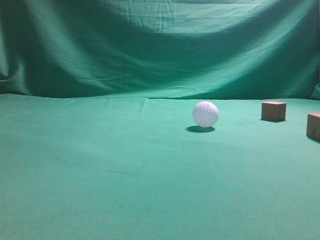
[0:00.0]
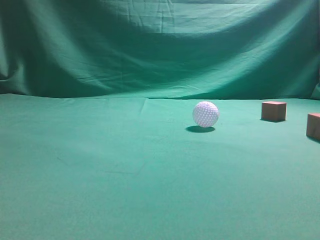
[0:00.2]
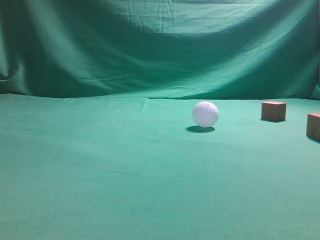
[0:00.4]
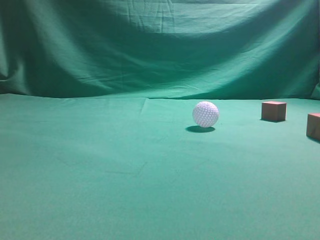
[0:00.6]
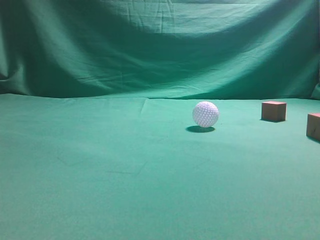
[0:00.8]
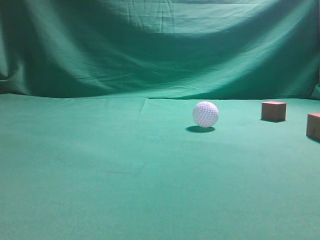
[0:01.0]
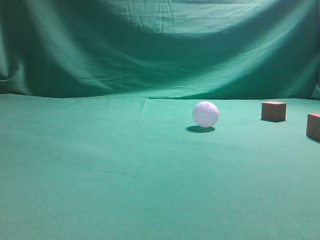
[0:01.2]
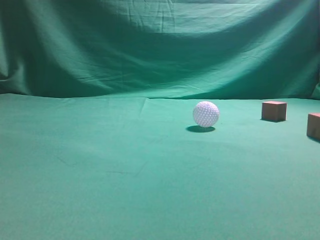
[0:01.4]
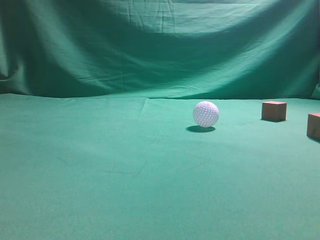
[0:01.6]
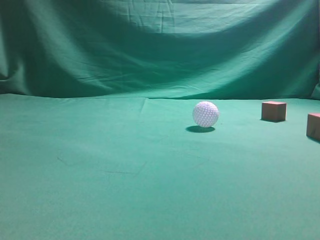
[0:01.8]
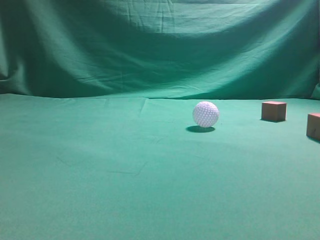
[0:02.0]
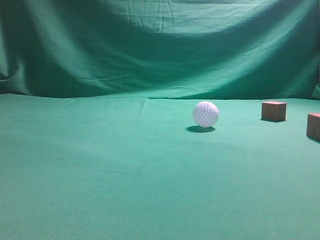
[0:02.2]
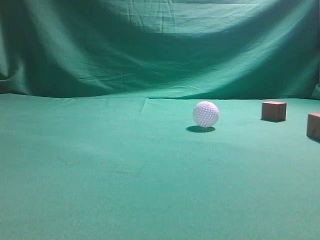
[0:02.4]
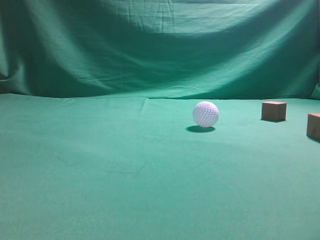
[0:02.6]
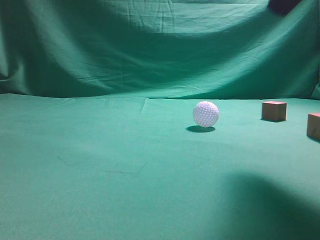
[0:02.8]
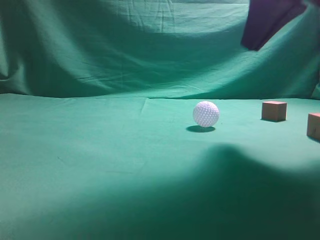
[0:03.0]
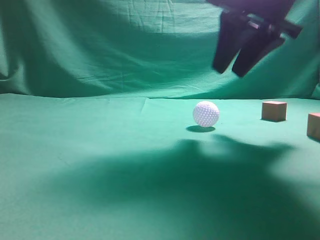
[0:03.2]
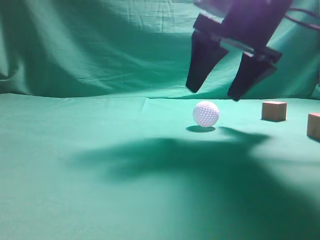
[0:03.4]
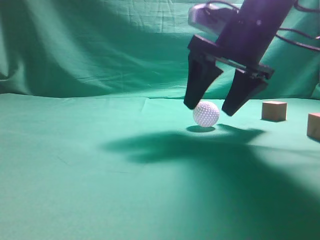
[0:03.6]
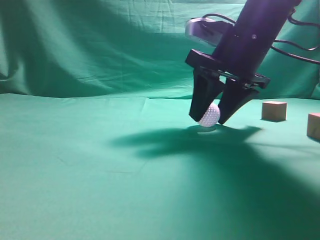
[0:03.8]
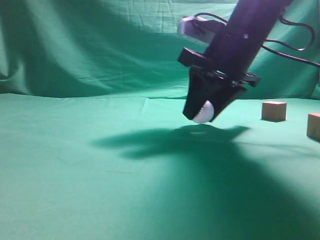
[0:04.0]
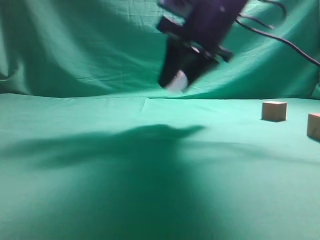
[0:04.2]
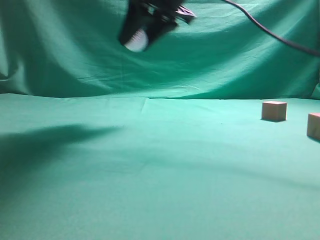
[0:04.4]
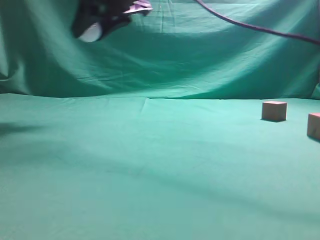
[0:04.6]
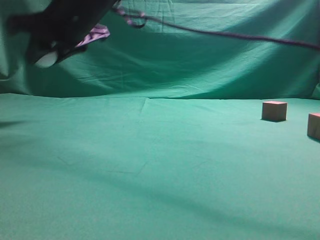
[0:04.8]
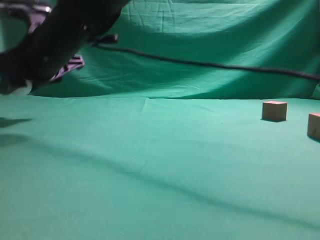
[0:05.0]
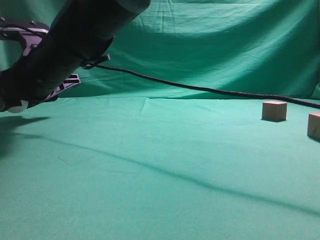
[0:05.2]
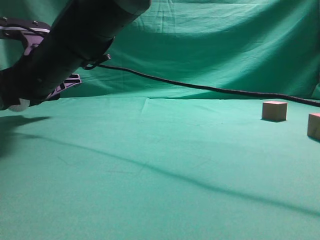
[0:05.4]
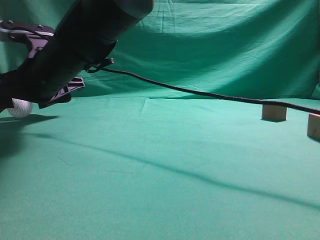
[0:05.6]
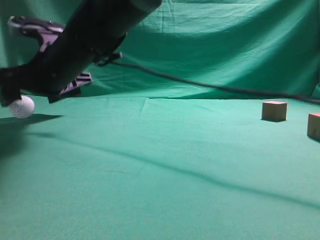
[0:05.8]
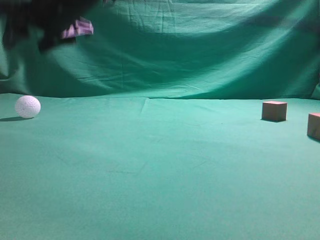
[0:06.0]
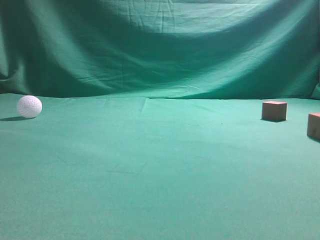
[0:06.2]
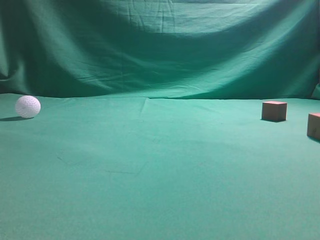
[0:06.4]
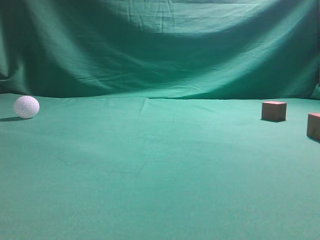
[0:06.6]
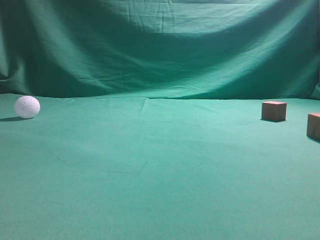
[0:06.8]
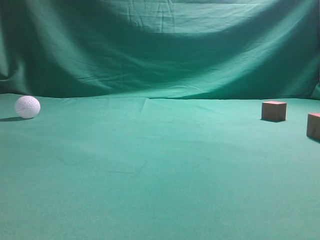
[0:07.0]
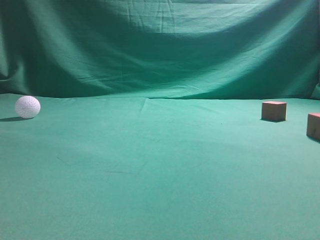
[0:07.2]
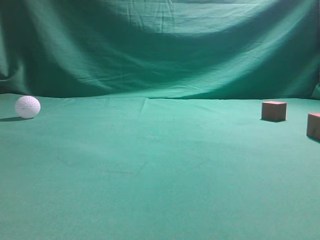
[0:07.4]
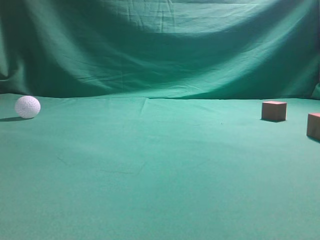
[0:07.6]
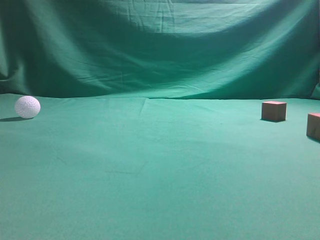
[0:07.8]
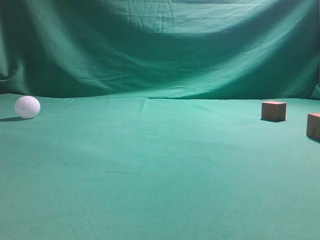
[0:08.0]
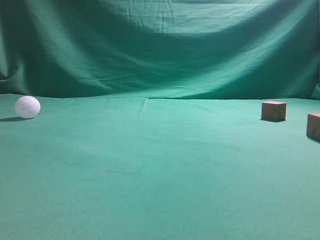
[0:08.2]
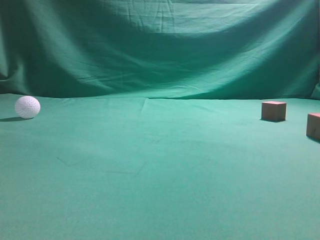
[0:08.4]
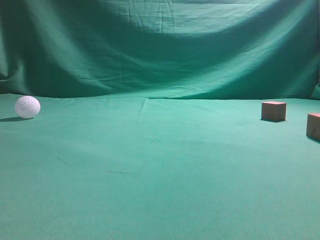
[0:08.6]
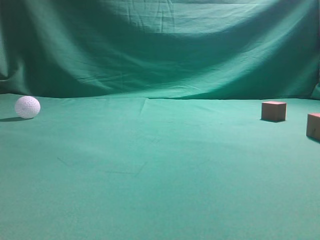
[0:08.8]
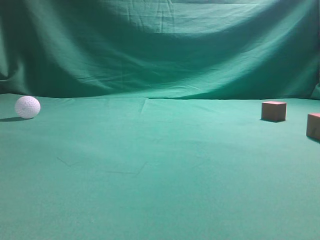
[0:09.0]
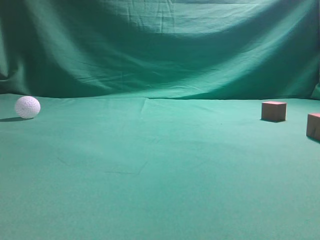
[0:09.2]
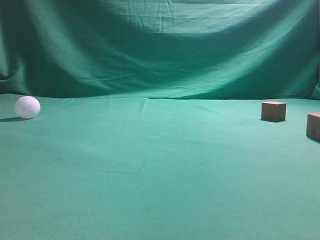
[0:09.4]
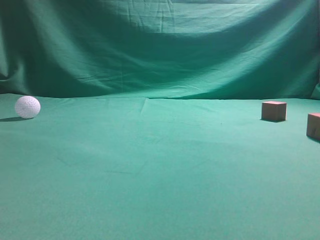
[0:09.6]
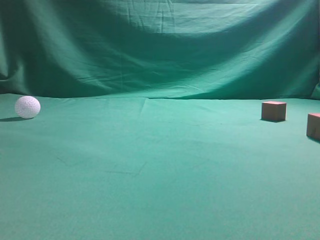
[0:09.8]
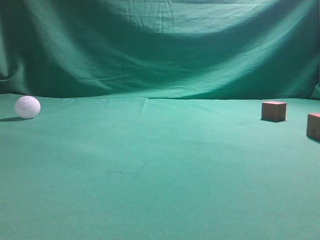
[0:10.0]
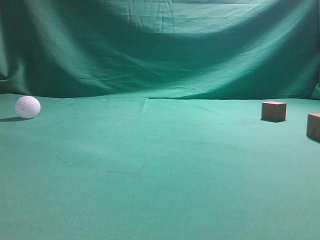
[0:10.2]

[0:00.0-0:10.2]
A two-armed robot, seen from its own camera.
Step, 0:00.0 to 0:04.2: Grasp the spherical object on the right side.
0:01.4 to 0:03.0: The right gripper heads forward and to the left, covering about 30 cm.
0:03.0 to 0:04.4: The right gripper shifts about 15 cm to the left and forward, and opens.
0:04.4 to 0:05.8: The right gripper moves to the left and downward, roughly 20 cm, and opens up.
0:05.8 to 0:07.2: The right gripper moves upward, to the right and backward, roughly 50 cm, and closes its fingers.
